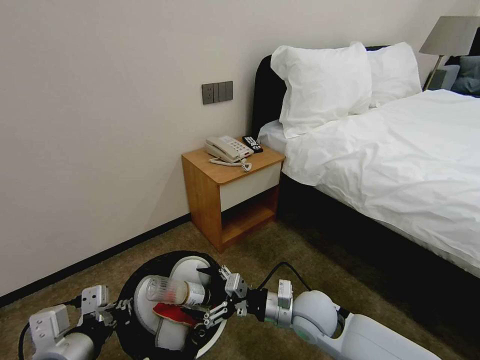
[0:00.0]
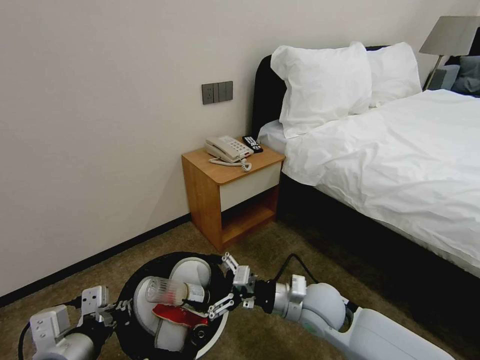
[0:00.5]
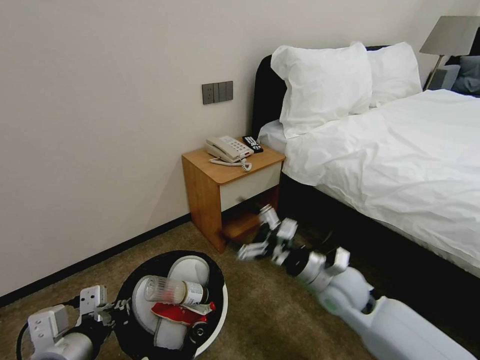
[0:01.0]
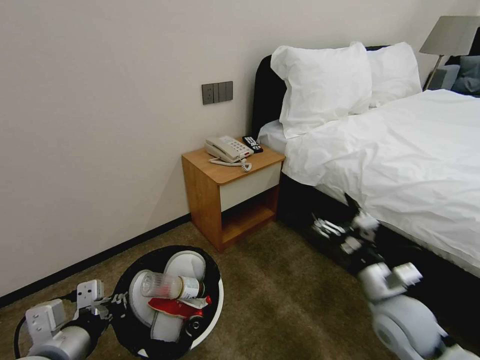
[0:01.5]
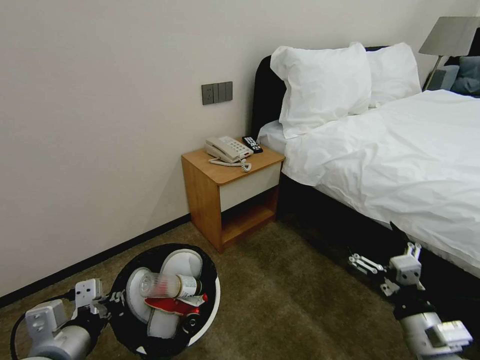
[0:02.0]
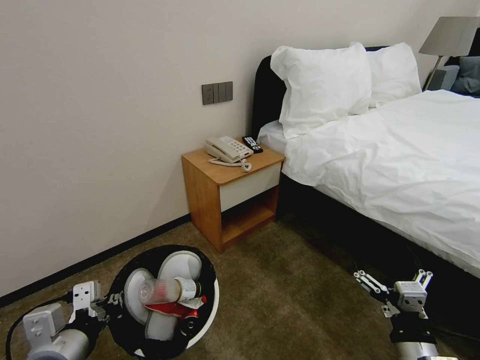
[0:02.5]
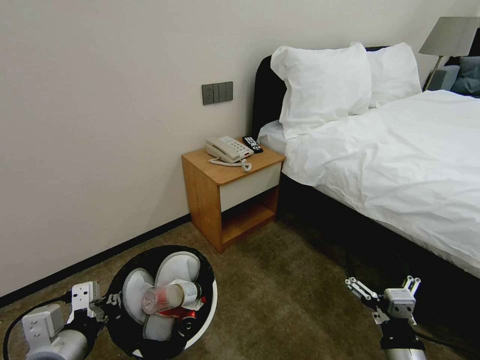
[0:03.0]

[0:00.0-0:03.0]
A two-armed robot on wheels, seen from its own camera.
Task of the whole recording: Pick up the trash bin, then pick up the garbage from the floor and place it into the trash bin.
0:00.0 to 0:01.5: The right gripper goes approximately 15 cm to the right and upward.
0:01.5 to 0:03.0: The right gripper heads backward and downward, covering about 15 cm.
